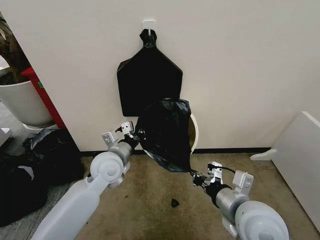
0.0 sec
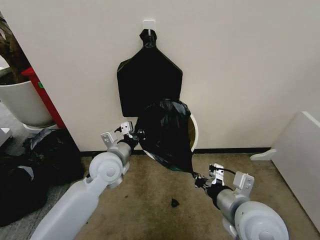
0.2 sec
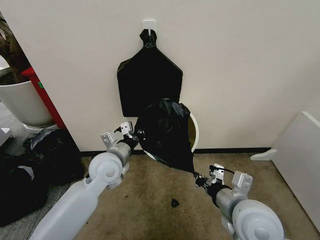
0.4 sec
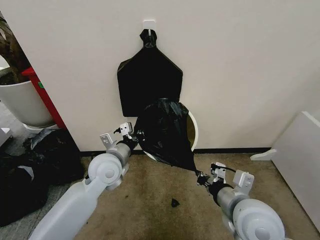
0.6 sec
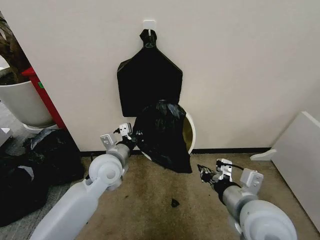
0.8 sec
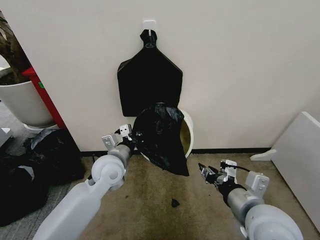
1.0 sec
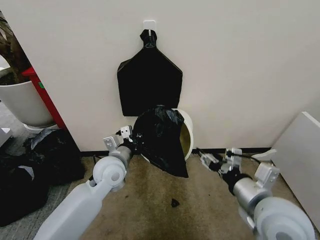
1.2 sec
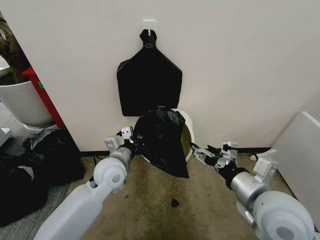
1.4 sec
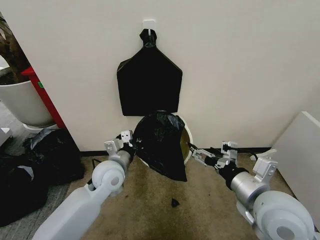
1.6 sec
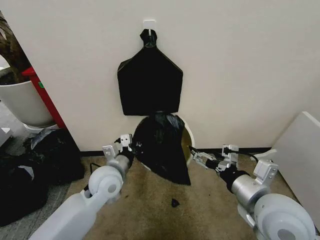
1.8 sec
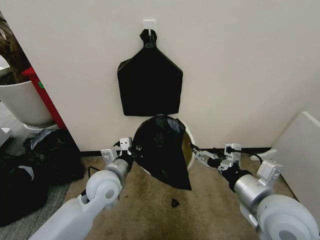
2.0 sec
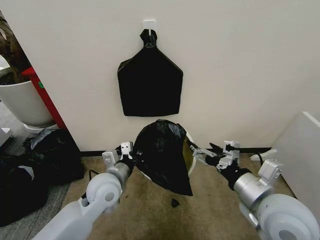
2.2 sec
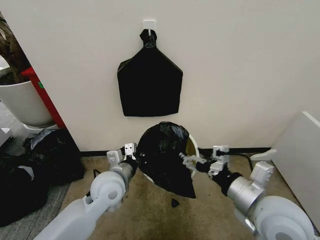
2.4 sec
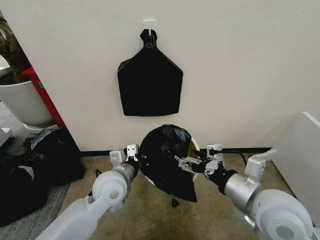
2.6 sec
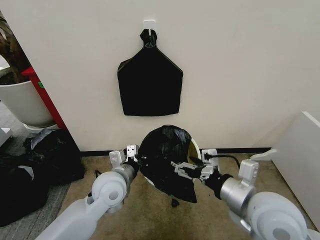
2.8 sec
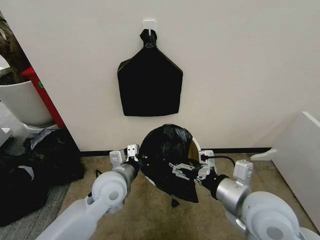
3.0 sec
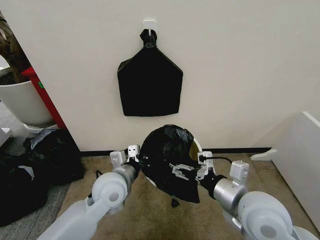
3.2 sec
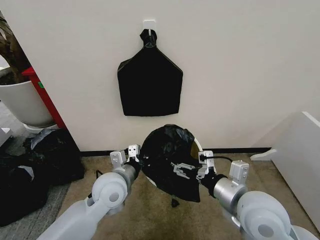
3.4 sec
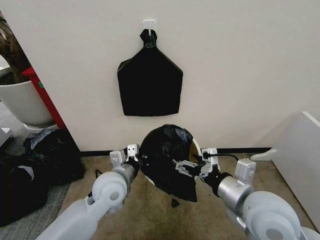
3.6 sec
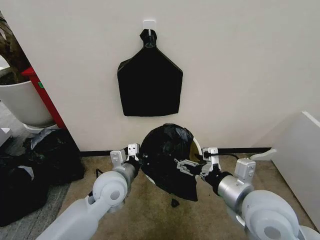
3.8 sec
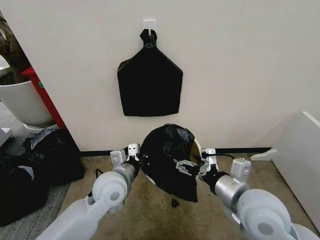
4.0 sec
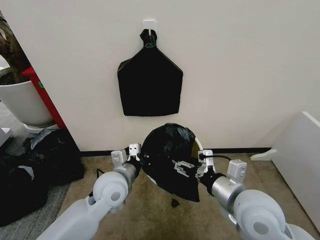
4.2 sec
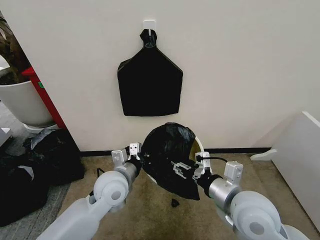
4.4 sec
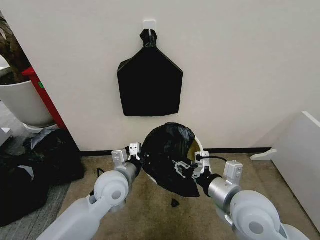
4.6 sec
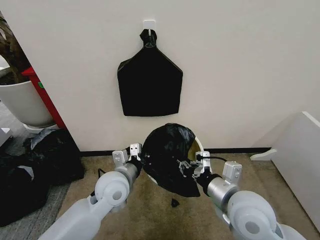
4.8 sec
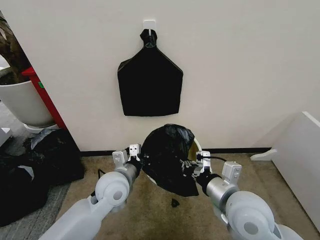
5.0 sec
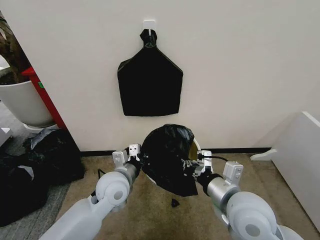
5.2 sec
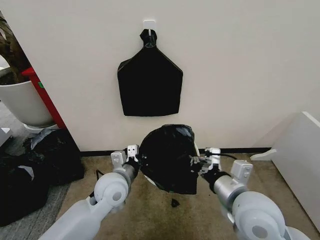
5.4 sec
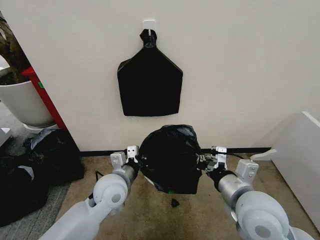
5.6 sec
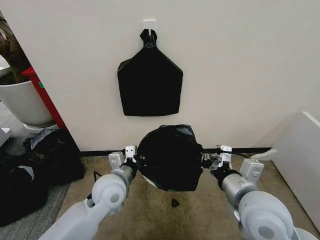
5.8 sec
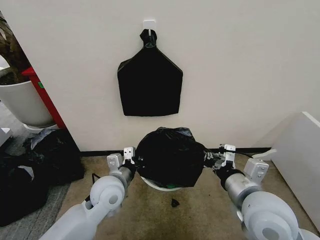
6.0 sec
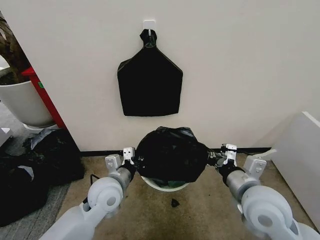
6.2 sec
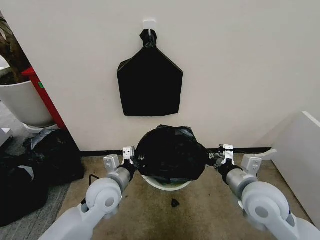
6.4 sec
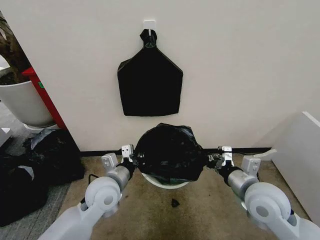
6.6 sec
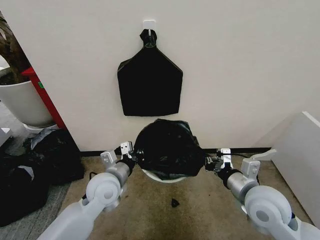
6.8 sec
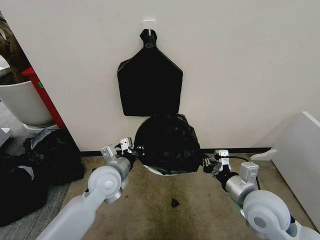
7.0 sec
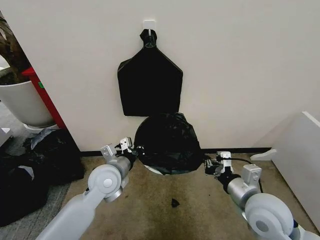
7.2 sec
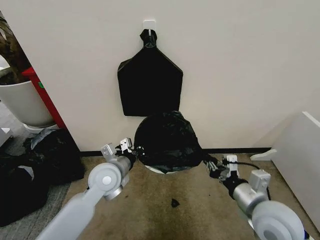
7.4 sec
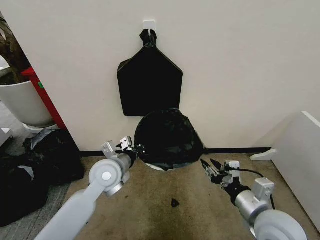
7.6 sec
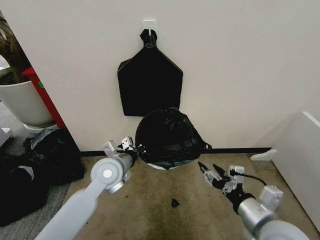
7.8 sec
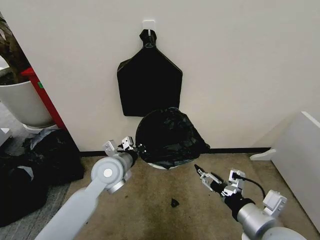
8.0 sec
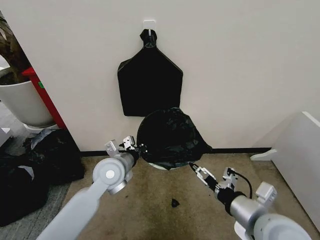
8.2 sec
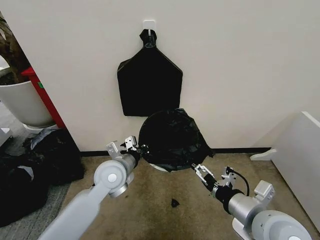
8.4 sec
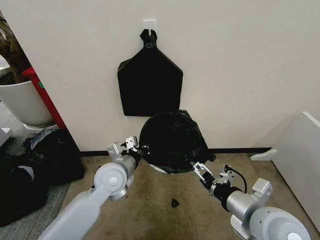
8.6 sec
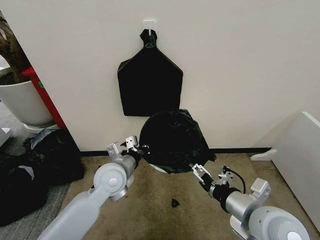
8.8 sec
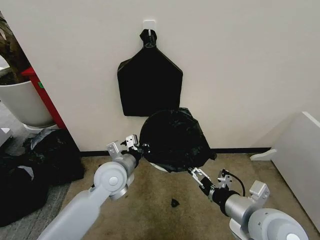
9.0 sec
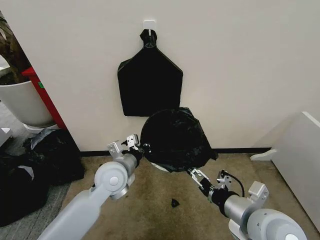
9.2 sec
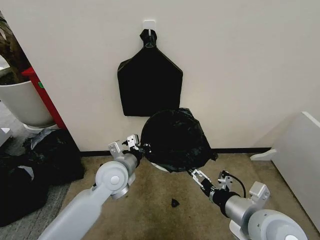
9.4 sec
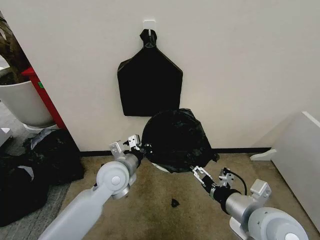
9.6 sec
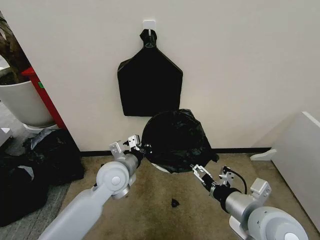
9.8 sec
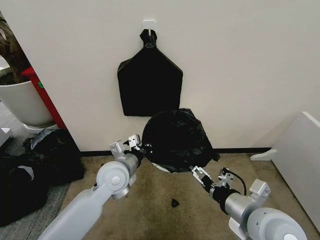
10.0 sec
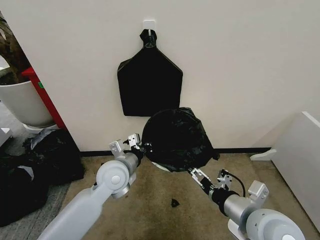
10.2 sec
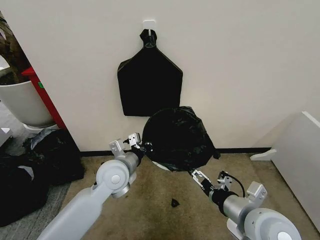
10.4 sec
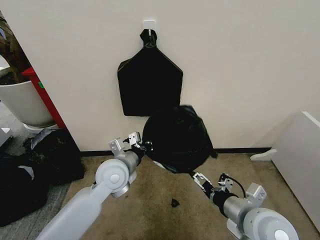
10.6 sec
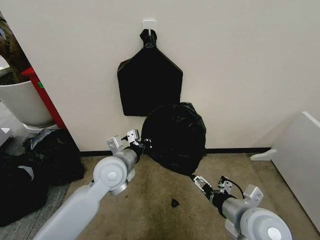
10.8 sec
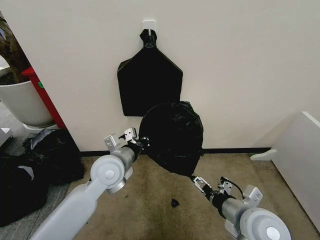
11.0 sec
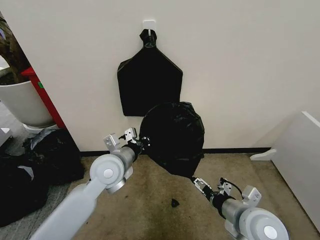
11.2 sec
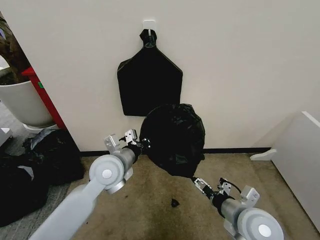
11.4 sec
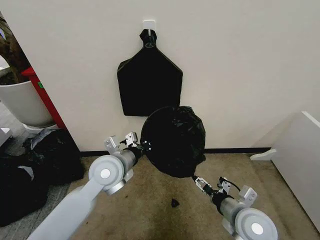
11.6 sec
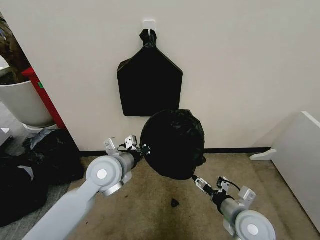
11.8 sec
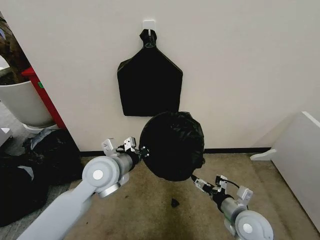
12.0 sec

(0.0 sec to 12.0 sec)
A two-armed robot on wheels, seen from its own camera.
Task of the whole recording: Place the garbage bag over the trash bin.
0.0 sec - 1.6 sec: The right gripper opens.
1.6 sec - 3.0 sec: The left gripper shifts by approximately 5 cm.
3.0 sec - 4.4 sec: The grippers make only small movements.
4.4 sec - 6.0 sec: The right gripper closes its fingers.
6.0 sec - 7.6 sec: The right gripper moves downward and to the right, approximately 10 cm, and opens its fingers. The left gripper moves approximately 5 cm.
7.6 sec - 9.0 sec: The right gripper ends up about 5 cm from where it was, and opens its fingers.
9.0 sec - 10.4 sec: Both grippers stay put.
10.4 sec - 12.0 sec: The right gripper goes some 15 cm downward.

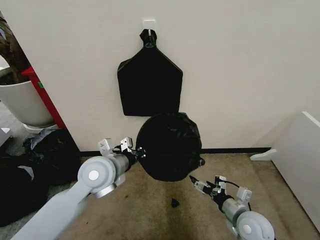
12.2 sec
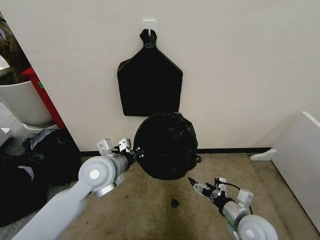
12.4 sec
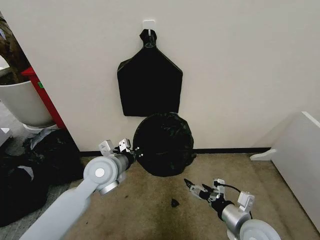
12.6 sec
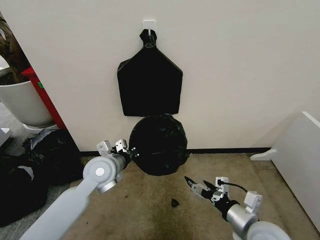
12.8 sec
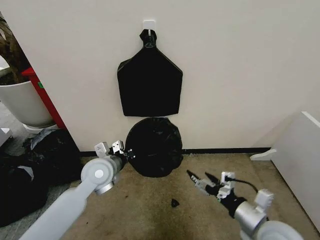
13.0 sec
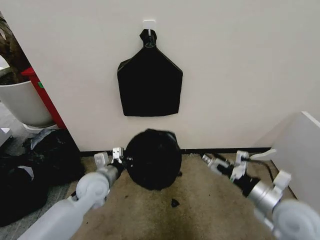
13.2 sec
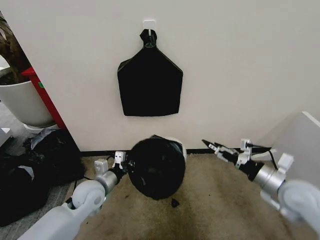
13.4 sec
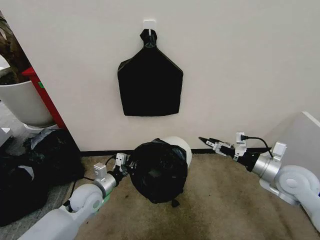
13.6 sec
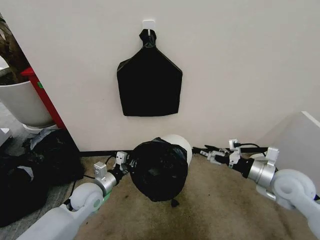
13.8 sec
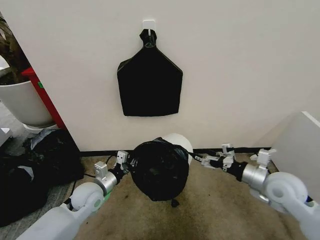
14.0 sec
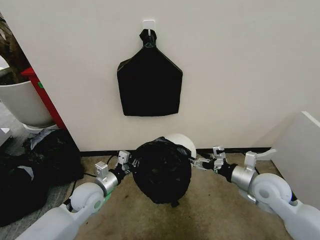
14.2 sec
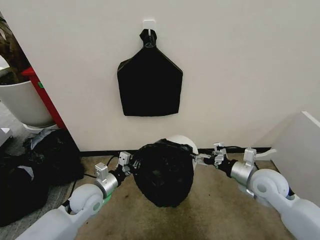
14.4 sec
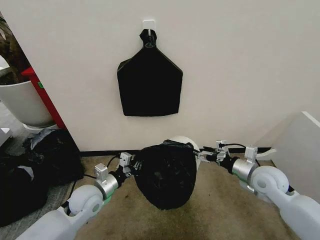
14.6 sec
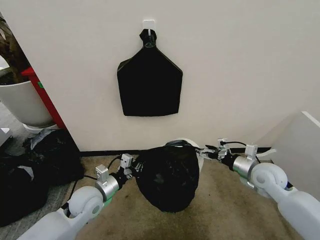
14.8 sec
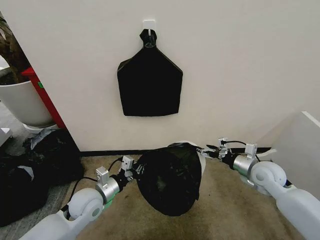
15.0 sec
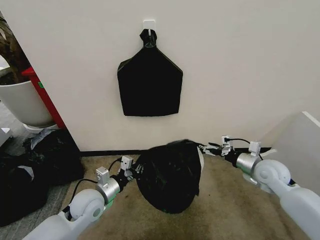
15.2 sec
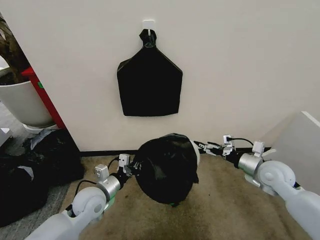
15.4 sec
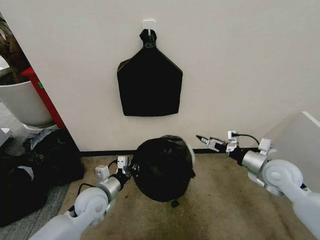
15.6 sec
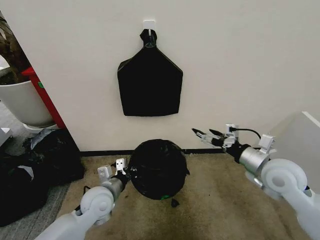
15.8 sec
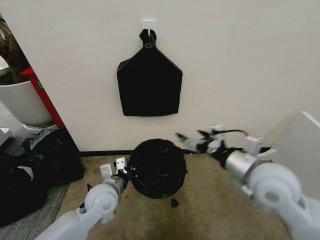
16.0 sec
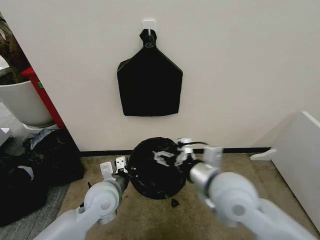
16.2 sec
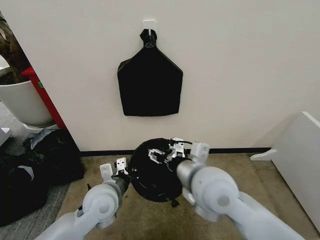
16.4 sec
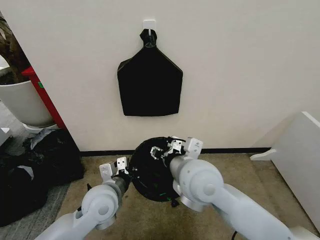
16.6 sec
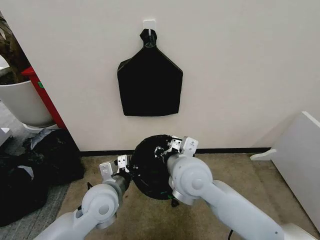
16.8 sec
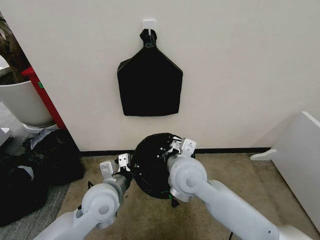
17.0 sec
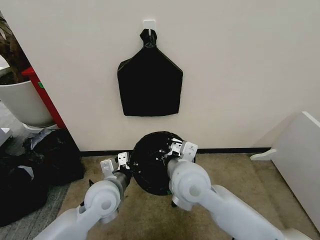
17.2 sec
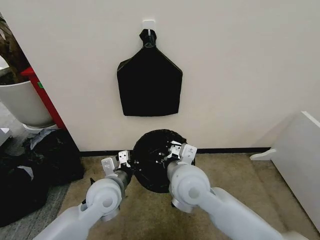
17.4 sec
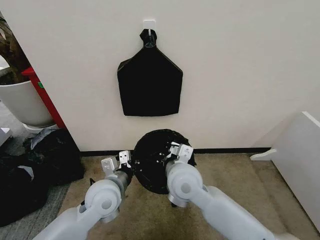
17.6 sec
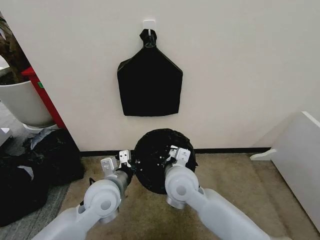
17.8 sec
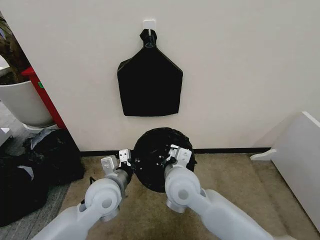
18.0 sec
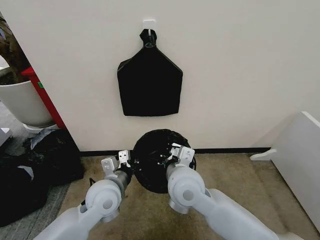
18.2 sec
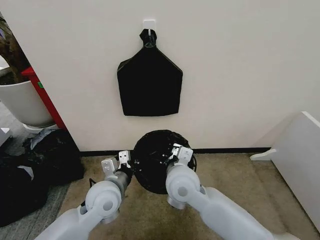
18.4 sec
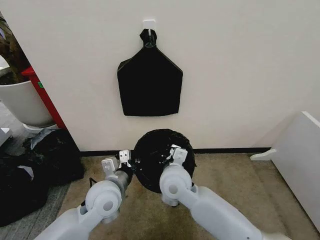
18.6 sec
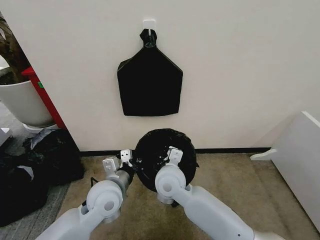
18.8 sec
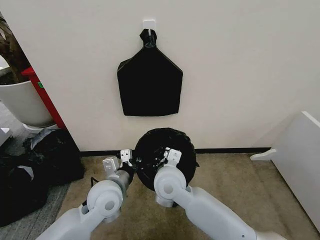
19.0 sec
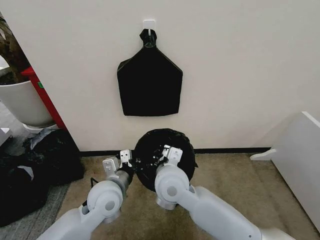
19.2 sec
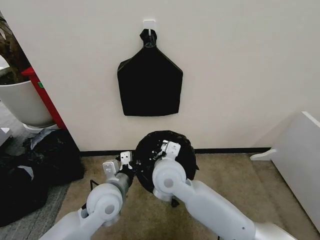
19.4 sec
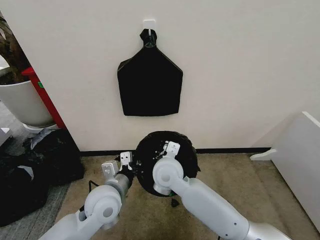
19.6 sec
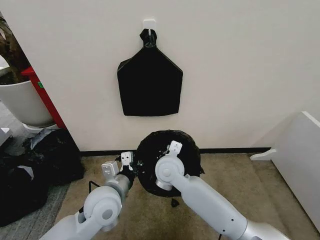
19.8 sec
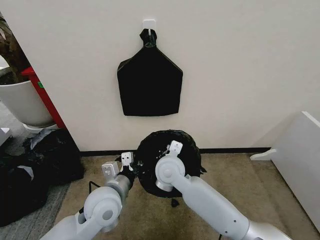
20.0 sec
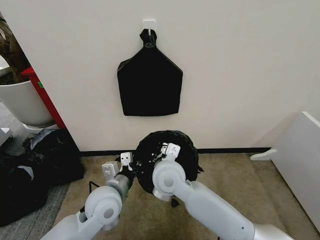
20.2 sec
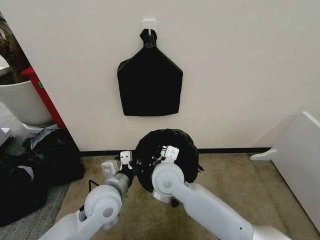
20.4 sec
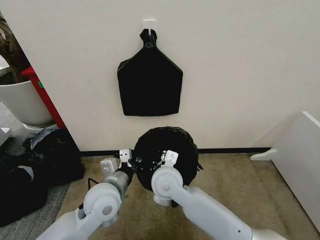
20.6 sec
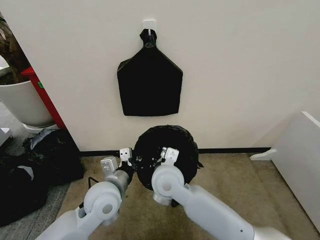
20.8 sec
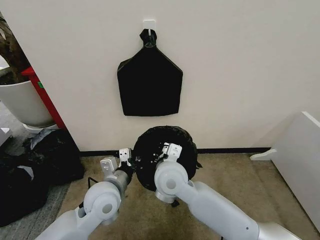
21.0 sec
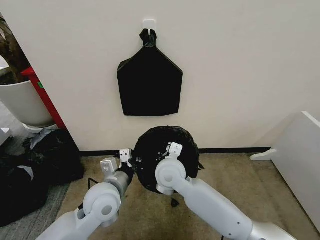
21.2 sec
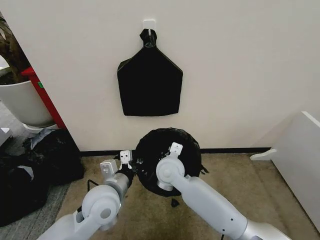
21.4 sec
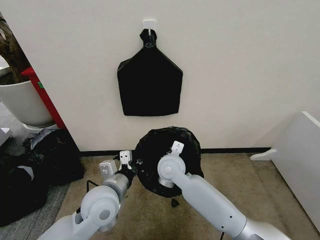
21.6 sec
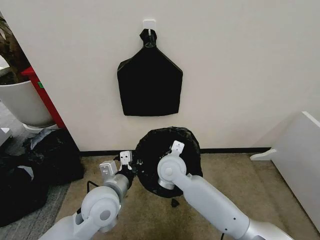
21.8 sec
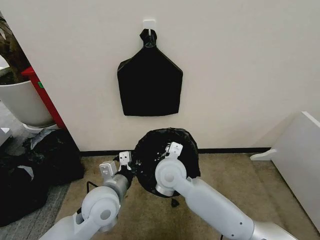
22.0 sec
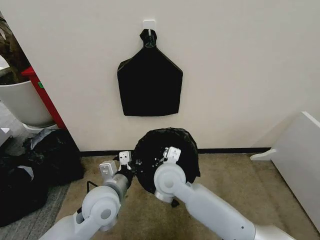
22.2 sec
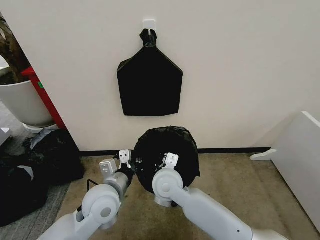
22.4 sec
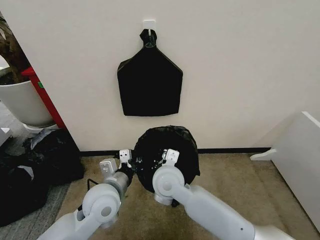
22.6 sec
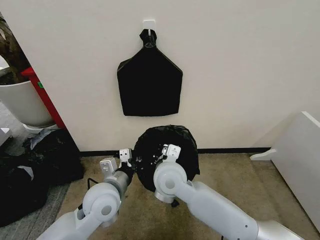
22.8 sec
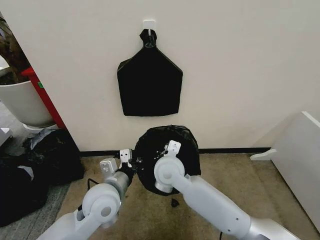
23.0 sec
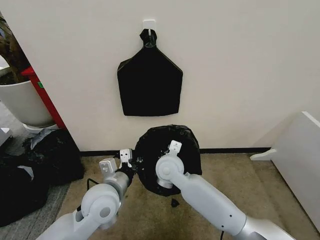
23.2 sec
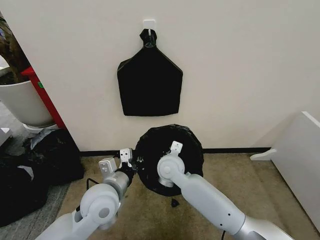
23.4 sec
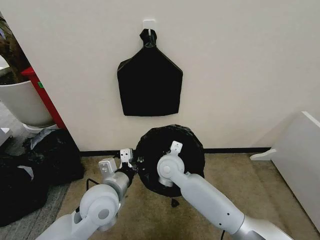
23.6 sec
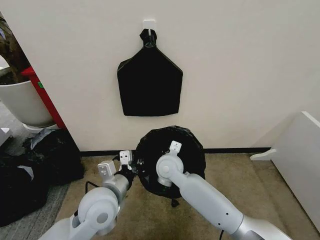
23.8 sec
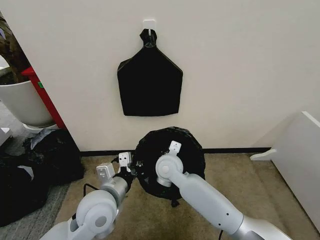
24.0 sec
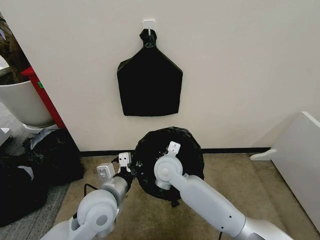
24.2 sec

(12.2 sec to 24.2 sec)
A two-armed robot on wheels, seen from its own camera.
Task of the whole recording: Place the garbage bag over the trash bin.
12.2 sec - 13.8 sec: The right gripper shifts about 15 cm upward, to the right and forward, while the left gripper travels downward and to the left by some 15 cm.
13.8 sec - 15.2 sec: The right gripper is displaced forward by approximately 5 cm.
15.2 sec - 16.6 sec: The right gripper is displaced to the left and upward by some 30 cm, and closes its fingers; the left gripper shifts roughly 10 cm upward and to the right.
16.6 sec - 18.2 sec: The right gripper is displaced downward by approximately 5 cm, and closes.
18.2 sec - 19.8 sec: The right gripper travels forward and downward by some 10 cm.
19.8 sec - 22.6 sec: The grippers stay close to where they were, moving slightly.
22.6 sec - 24.2 sec: The right gripper heads forward, covering about 5 cm.
